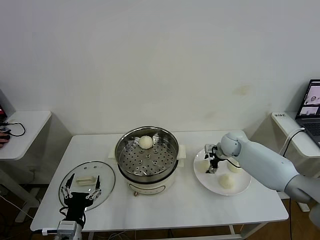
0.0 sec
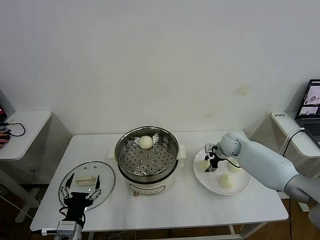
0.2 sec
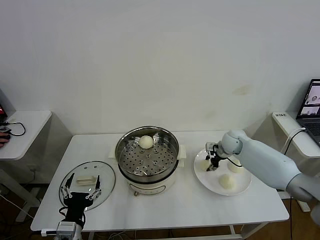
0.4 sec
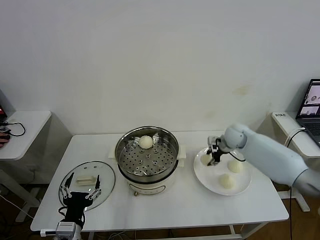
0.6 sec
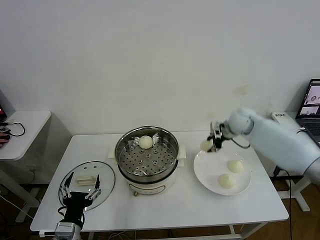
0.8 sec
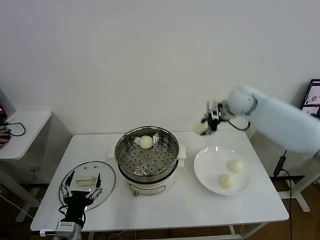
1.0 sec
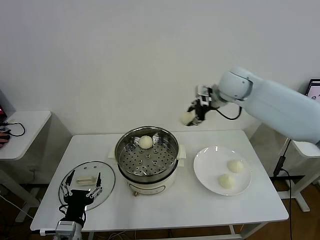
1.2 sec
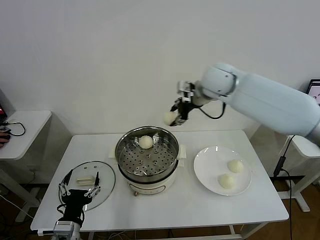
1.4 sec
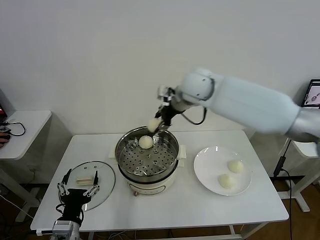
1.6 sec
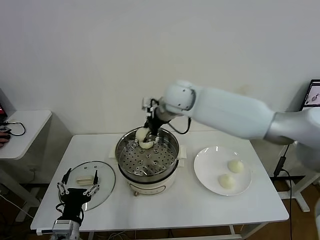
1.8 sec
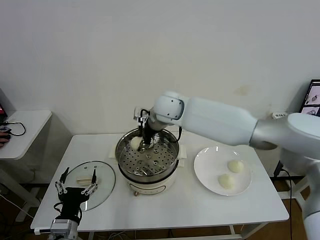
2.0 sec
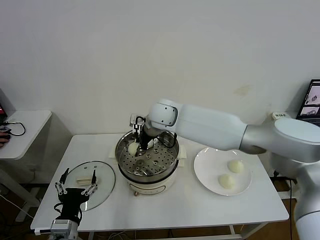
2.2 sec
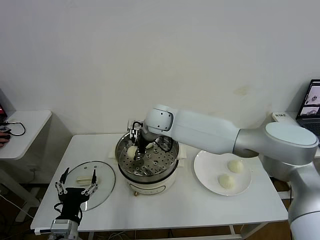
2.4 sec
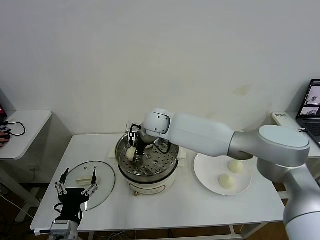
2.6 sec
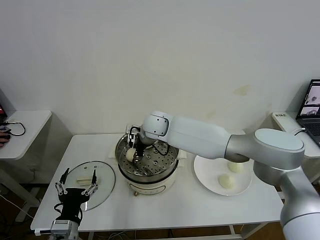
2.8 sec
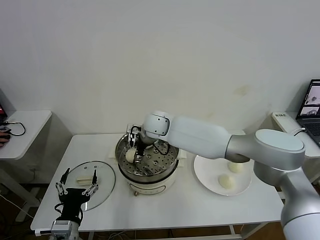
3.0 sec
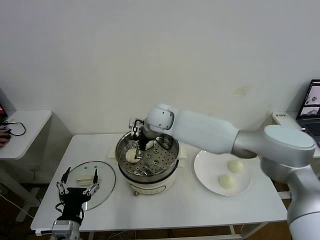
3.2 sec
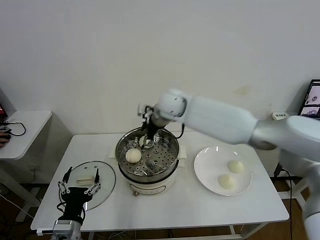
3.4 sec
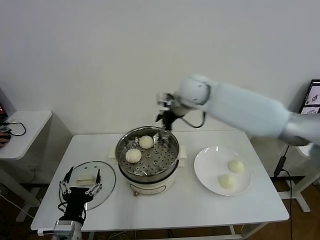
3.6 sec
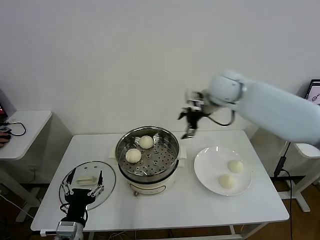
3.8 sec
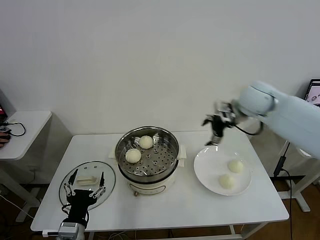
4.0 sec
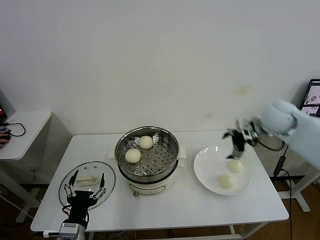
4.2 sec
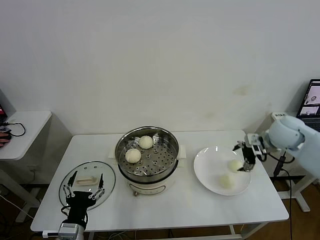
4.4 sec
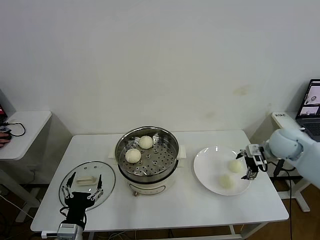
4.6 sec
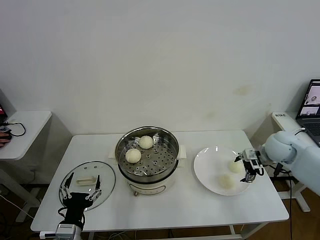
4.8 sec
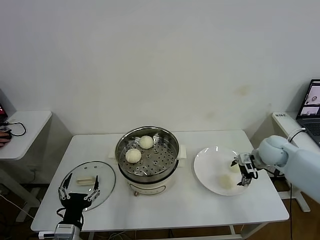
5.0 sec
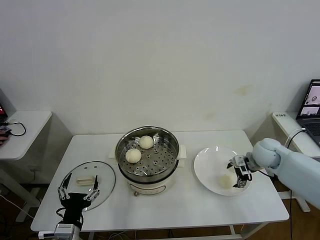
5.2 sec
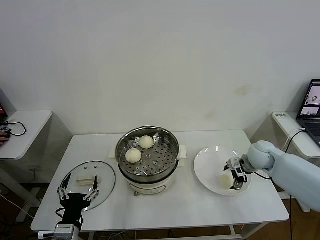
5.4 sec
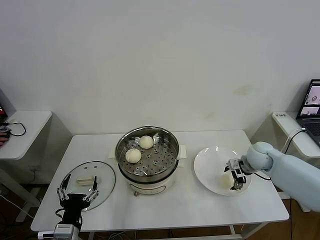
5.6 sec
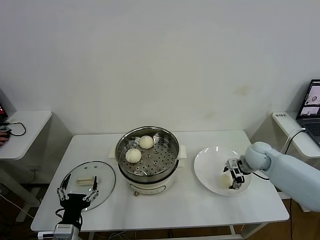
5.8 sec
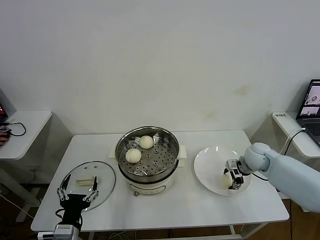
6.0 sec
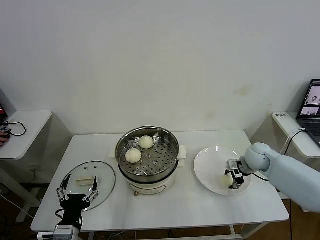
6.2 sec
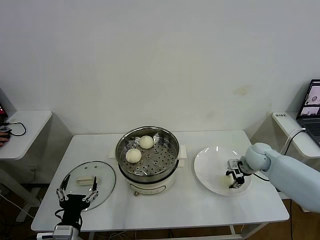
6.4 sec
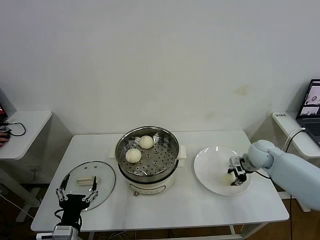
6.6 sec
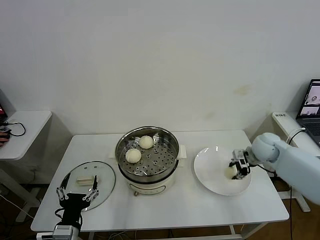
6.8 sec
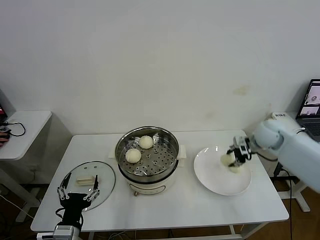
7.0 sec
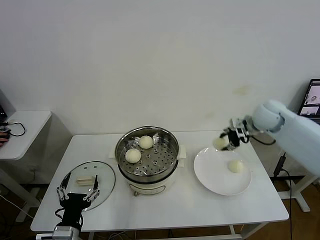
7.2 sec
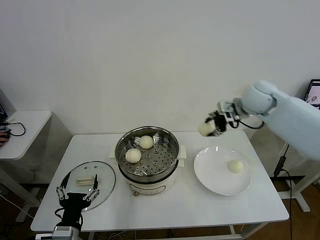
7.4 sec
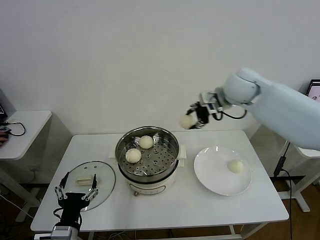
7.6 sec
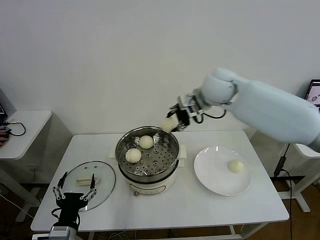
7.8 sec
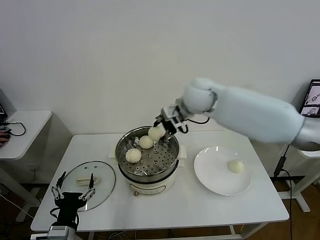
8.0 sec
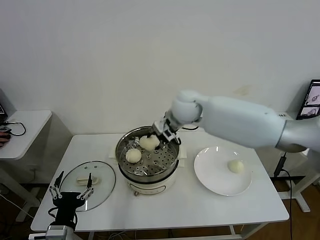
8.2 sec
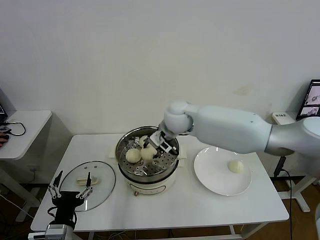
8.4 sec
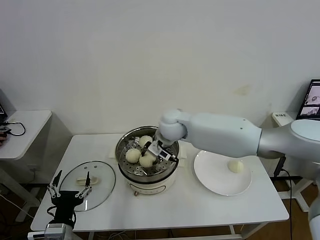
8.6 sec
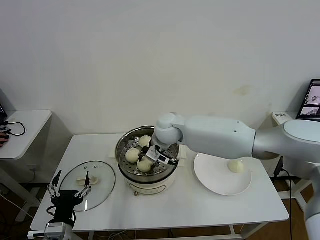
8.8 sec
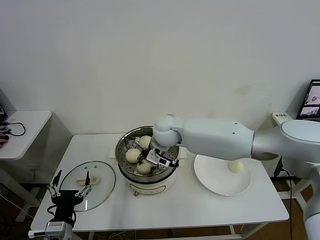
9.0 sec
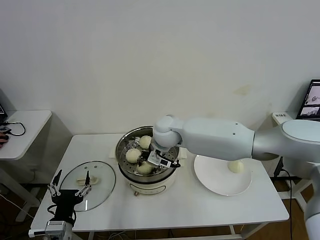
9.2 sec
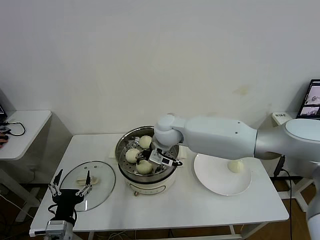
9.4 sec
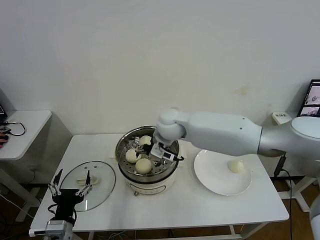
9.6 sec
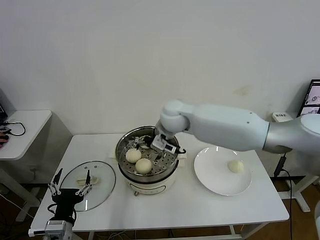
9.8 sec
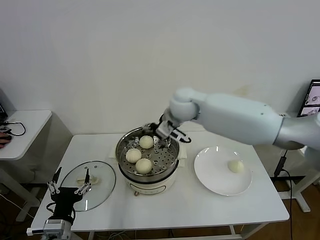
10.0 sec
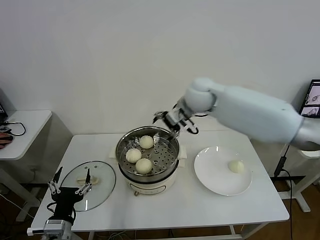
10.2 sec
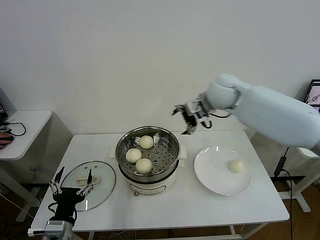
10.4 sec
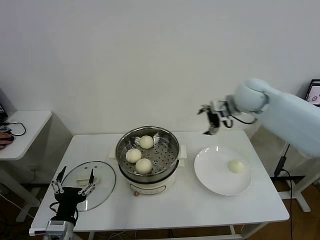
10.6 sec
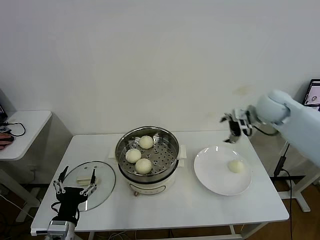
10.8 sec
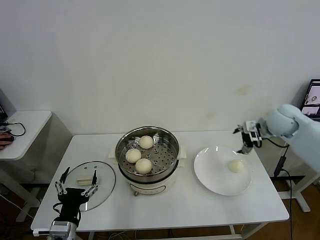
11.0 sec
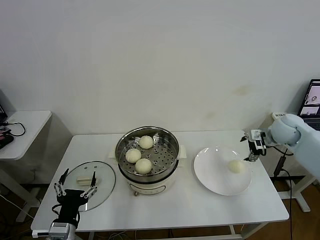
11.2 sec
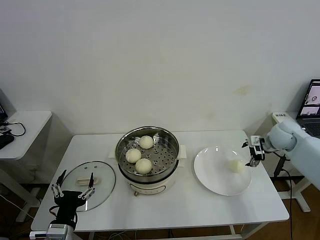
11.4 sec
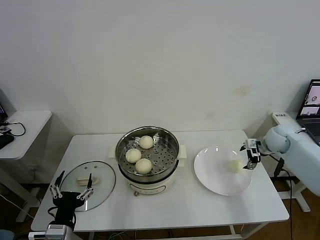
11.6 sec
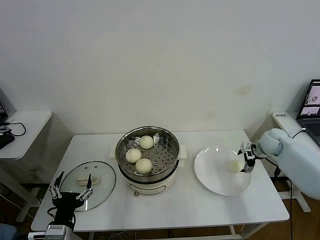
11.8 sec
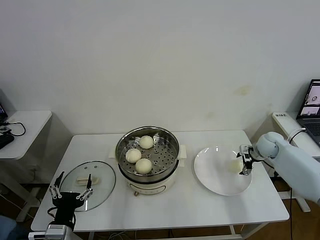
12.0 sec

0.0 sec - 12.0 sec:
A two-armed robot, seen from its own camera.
Task of the whole recording: take steamed baozi put them in steamer then cover it.
Step, 0.4 sec - 3.0 sec: Place the baozi on the steamer with right gripper.
Step, 3.2 sec - 6.2 sec: Grasp the baozi in the plate with right gripper.
Step, 6.6 sec - 9.6 sec: Place the baozi on the steamer with right gripper.
0.0 sec - 1.6 sec: The right gripper shifts some 35 cm upward and to the left, and closes up.
1.6 sec - 3.0 sec: The right gripper shifts some 20 cm downward and to the left, and opens.
3.0 sec - 4.4 sec: The right gripper heads to the right, covering some 40 cm, and opens up.
4.4 sec - 6.0 sec: The right gripper is displaced downward by about 15 cm, and closes.
6.0 sec - 7.6 sec: The right gripper travels upward and to the left by about 30 cm, and closes.
7.6 sec - 9.0 sec: The right gripper travels to the left and downward by some 25 cm.
9.0 sec - 10.4 sec: The right gripper is displaced to the right and upward by approximately 20 cm, and opens its fingers.
10.4 sec - 12.0 sec: The right gripper heads to the right and downward, covering approximately 35 cm.

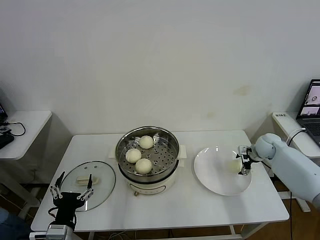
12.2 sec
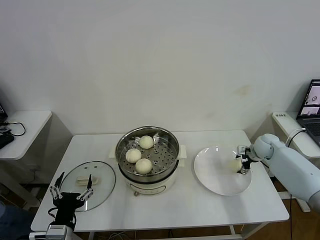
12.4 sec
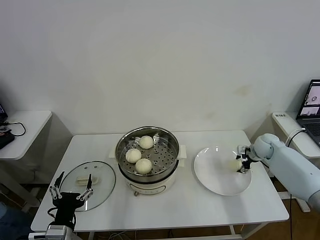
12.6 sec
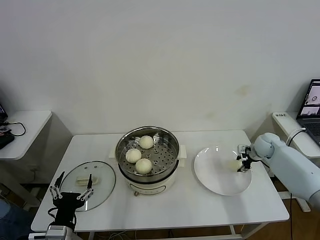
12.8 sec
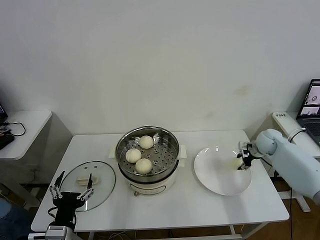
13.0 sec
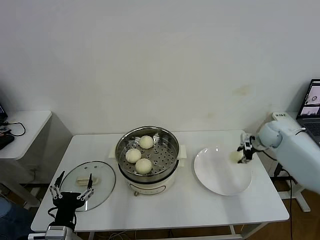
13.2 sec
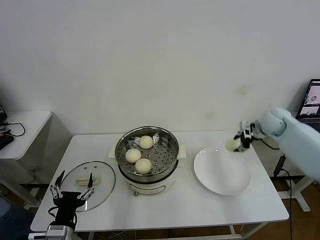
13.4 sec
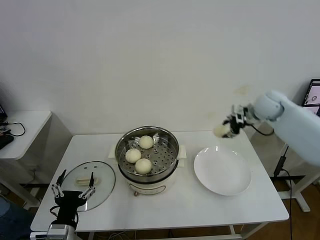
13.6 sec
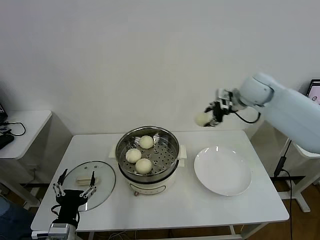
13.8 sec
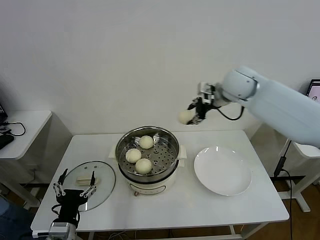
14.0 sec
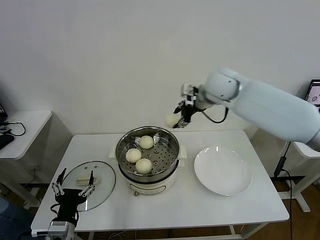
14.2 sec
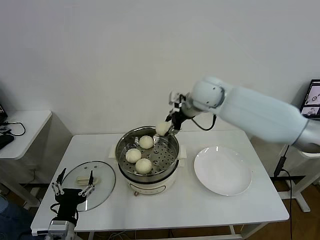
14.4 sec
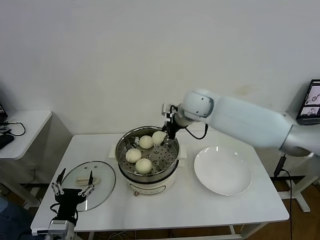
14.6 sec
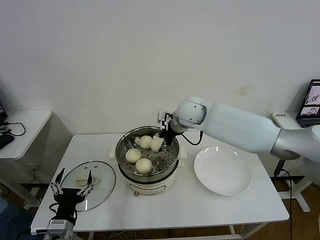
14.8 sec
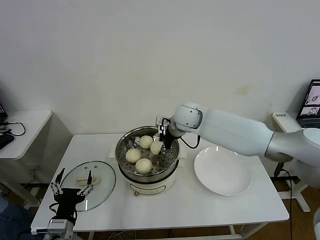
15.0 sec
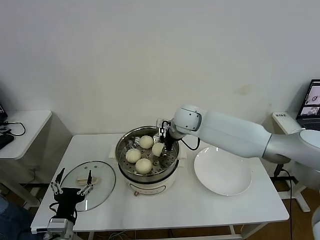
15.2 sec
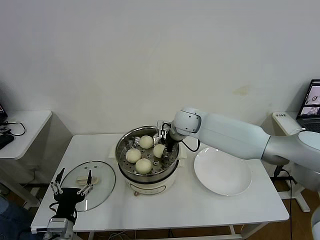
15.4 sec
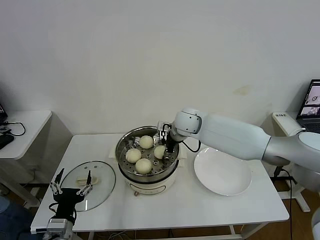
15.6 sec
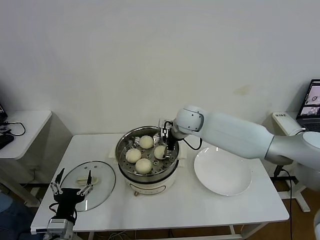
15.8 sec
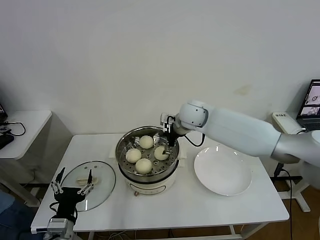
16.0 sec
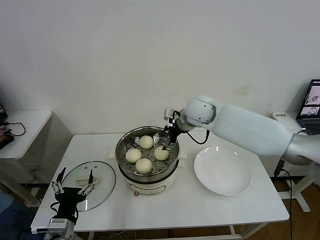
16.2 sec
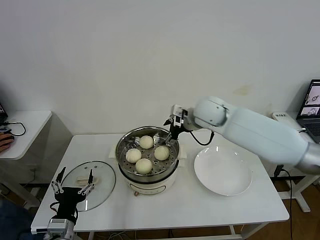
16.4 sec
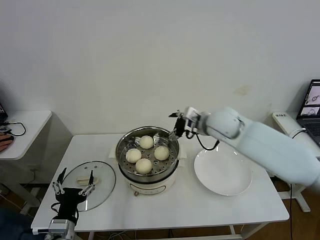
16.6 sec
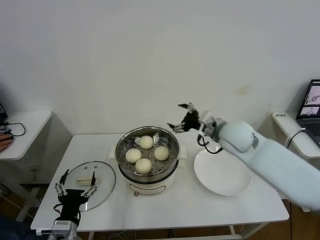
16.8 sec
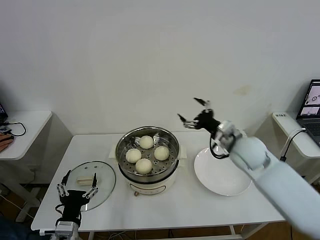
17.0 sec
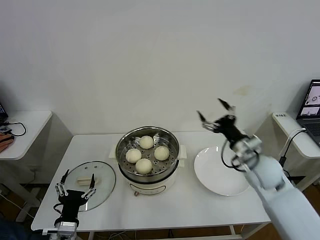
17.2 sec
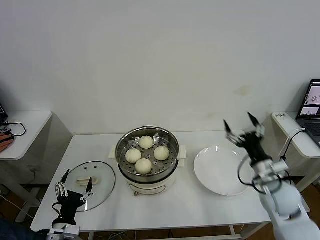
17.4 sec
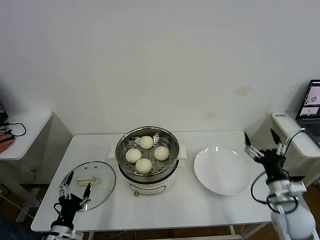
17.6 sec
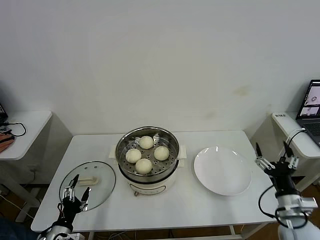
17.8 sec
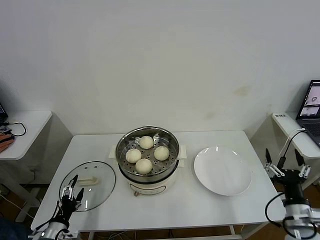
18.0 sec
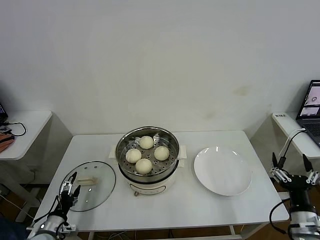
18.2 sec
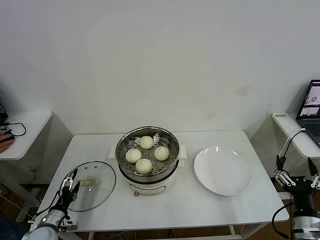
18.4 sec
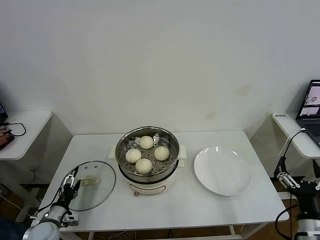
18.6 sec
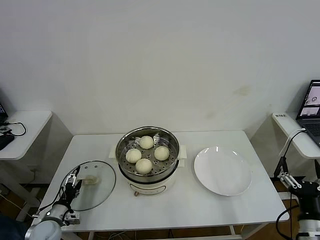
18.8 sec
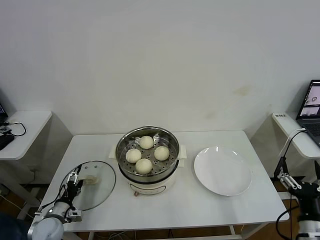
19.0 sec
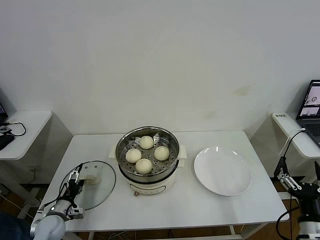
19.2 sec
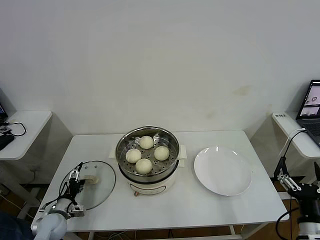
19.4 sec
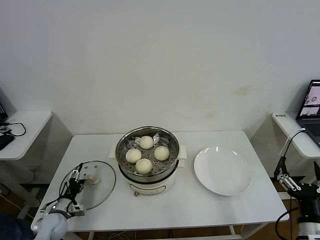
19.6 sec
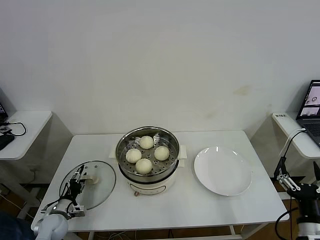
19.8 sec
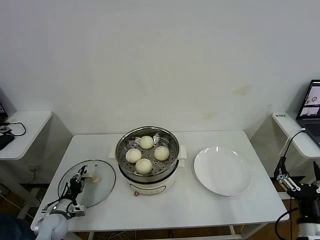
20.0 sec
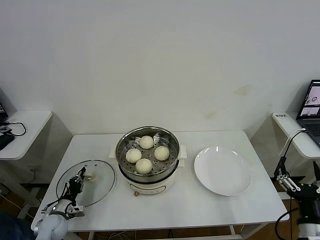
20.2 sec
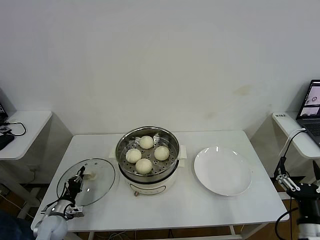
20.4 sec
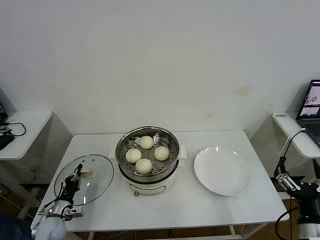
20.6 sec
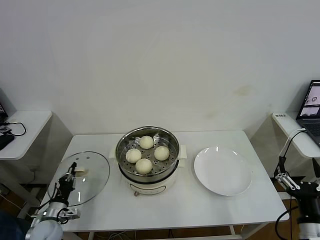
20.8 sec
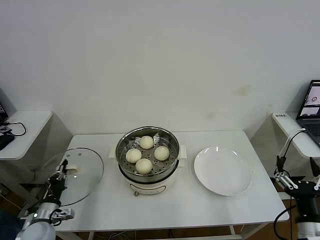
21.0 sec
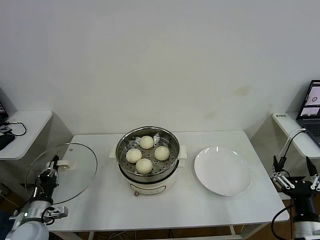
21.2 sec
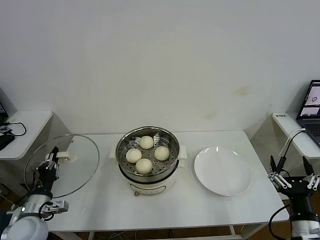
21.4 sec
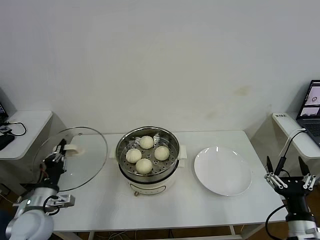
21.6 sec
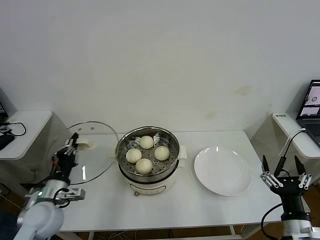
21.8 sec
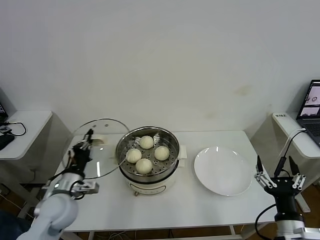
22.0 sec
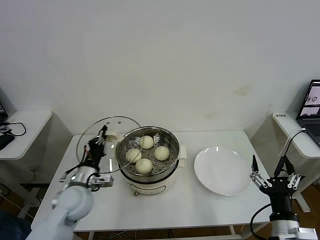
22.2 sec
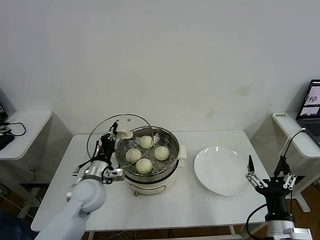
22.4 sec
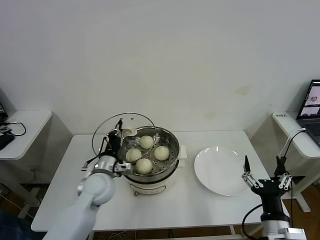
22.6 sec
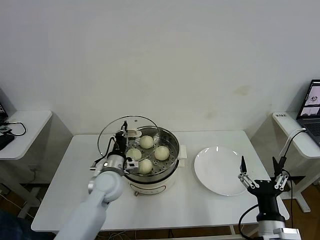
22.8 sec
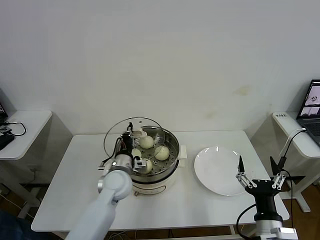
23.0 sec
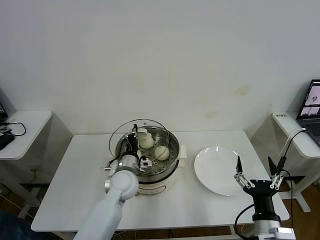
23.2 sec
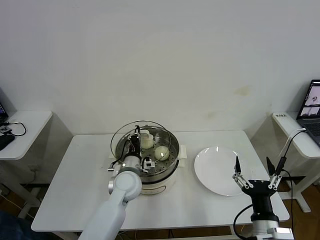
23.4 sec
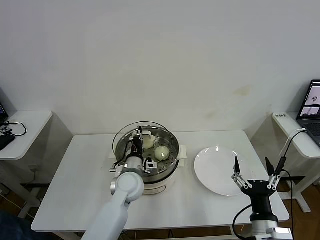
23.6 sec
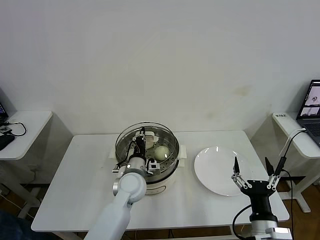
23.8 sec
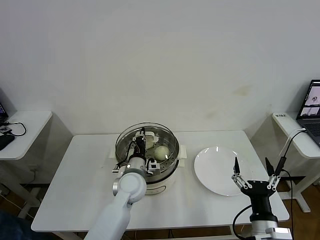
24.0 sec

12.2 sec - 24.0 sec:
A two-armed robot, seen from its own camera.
Task of the whole recording: take steamed baozi put them in steamer then cover it.
Step, 13.0 sec - 15.8 sec: Place the baozi on the steamer with right gripper.
Step, 16.2 sec - 20.4 sec: Grasp the pot lid with left gripper.
12.2 sec - 13.6 sec: The right gripper goes approximately 20 cm upward, and closes its fingers.
13.6 sec - 15.2 sec: The right gripper travels to the left by roughly 25 cm.
15.2 sec - 16.6 sec: The right gripper shifts about 10 cm to the right and backward, and opens.
16.6 sec - 18.2 sec: The left gripper goes about 15 cm downward and to the left. The right gripper travels backward, to the right and downward by about 40 cm.
18.2 sec - 19.6 sec: The left gripper travels forward by roughly 10 cm.
19.6 sec - 21.0 sec: The left gripper ends up approximately 5 cm from where it was, and closes up.
21.0 sec - 22.6 sec: The left gripper goes about 25 cm to the right, upward and forward; the right gripper moves to the left, some 10 cm.
22.6 sec - 24.0 sec: The left gripper travels to the right by approximately 10 cm.
